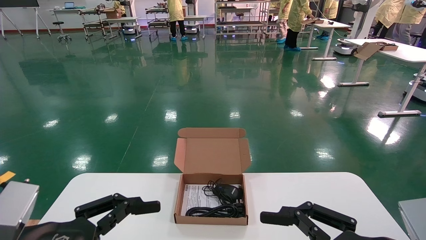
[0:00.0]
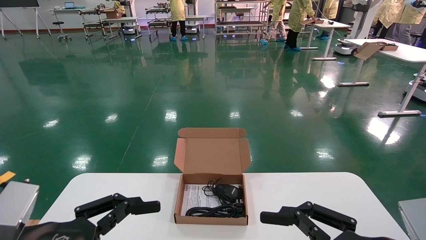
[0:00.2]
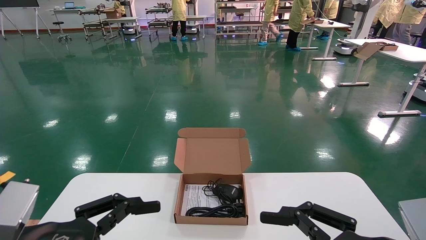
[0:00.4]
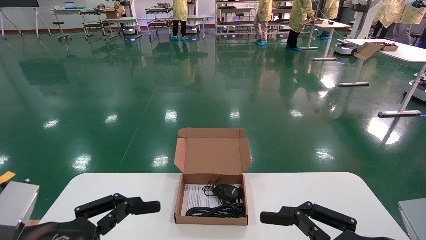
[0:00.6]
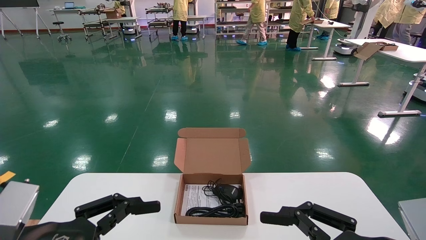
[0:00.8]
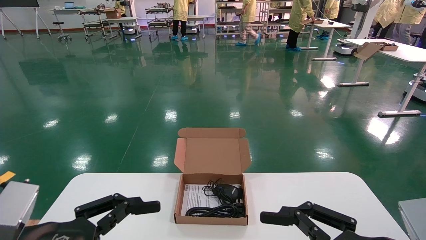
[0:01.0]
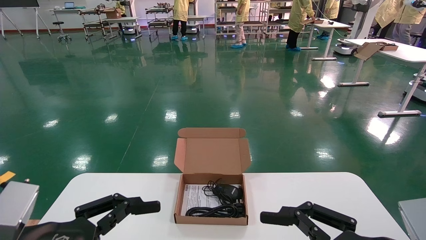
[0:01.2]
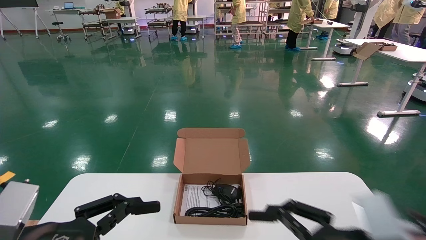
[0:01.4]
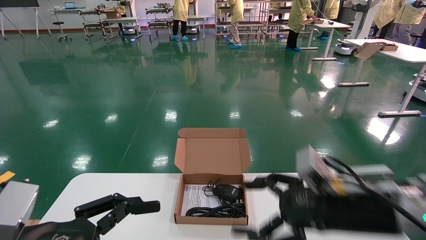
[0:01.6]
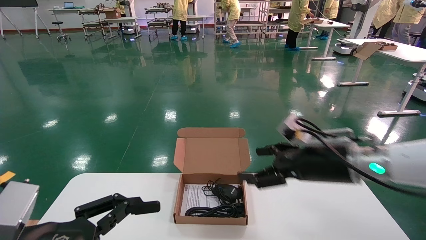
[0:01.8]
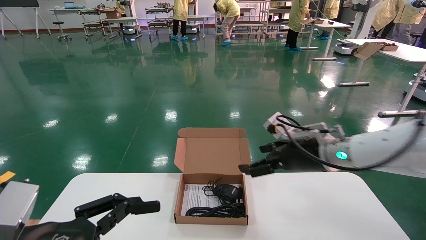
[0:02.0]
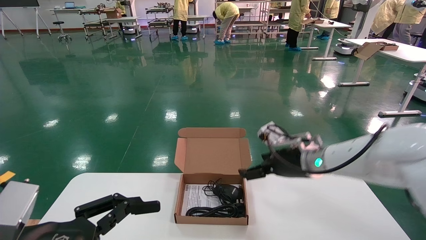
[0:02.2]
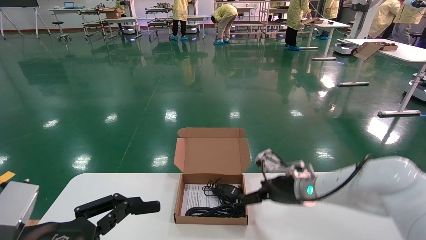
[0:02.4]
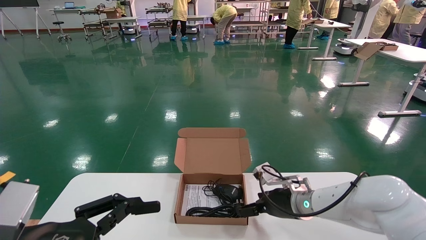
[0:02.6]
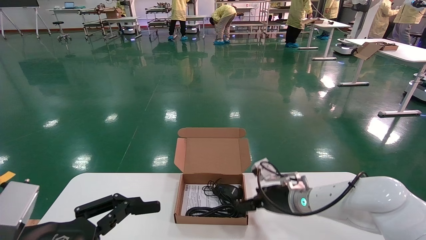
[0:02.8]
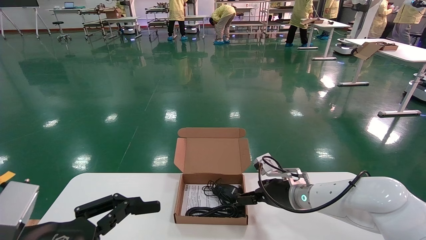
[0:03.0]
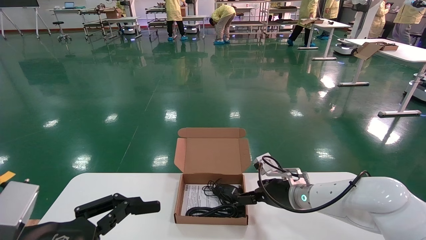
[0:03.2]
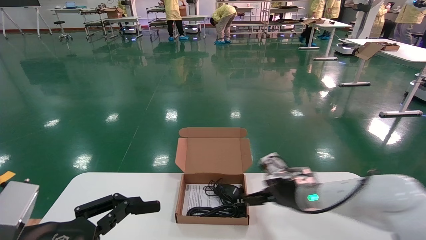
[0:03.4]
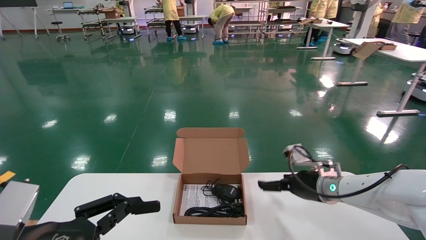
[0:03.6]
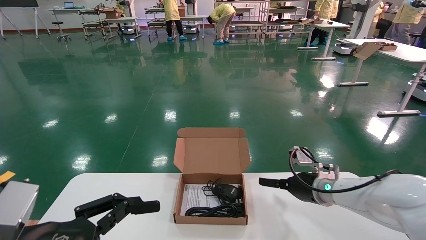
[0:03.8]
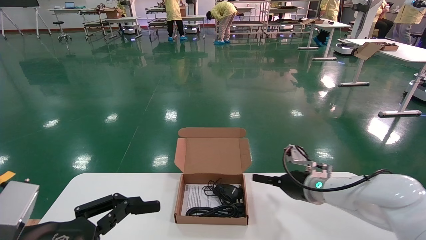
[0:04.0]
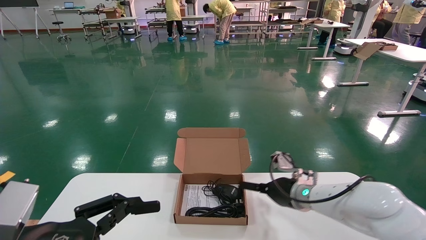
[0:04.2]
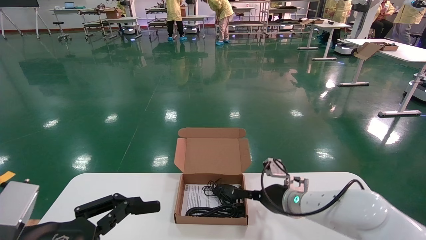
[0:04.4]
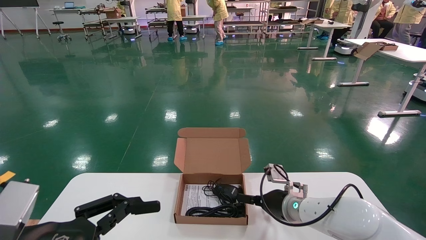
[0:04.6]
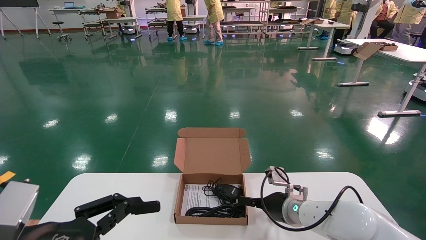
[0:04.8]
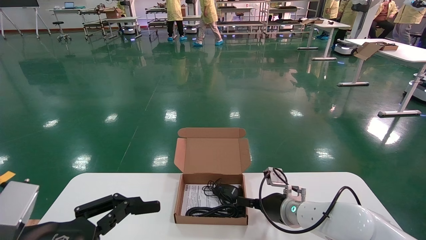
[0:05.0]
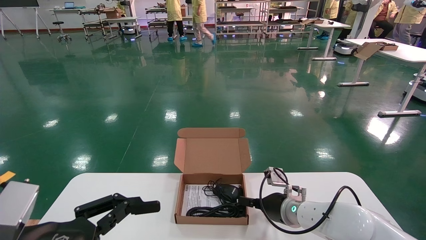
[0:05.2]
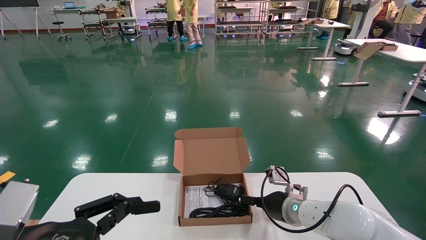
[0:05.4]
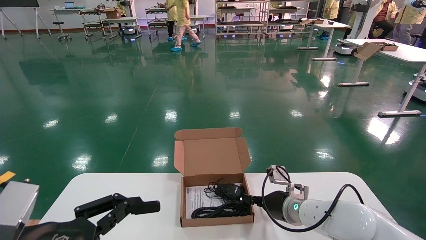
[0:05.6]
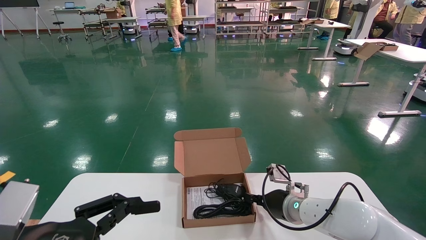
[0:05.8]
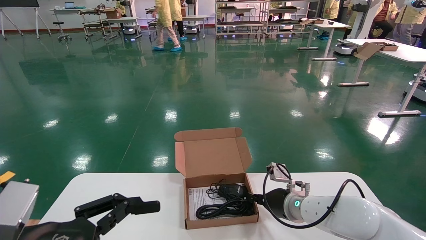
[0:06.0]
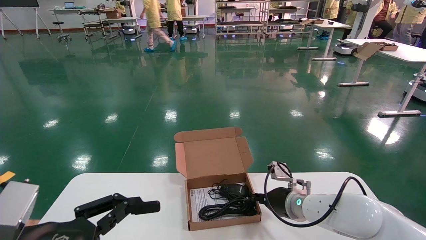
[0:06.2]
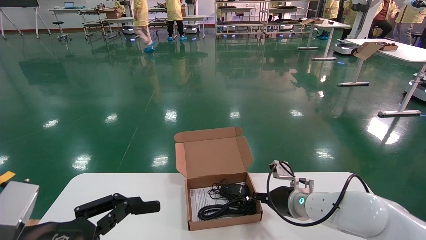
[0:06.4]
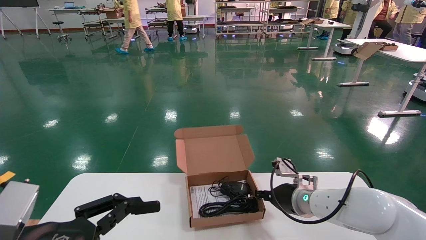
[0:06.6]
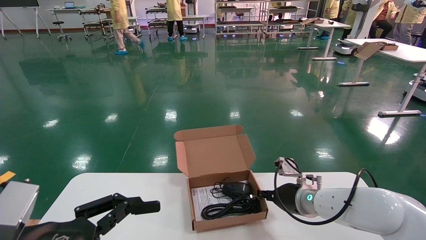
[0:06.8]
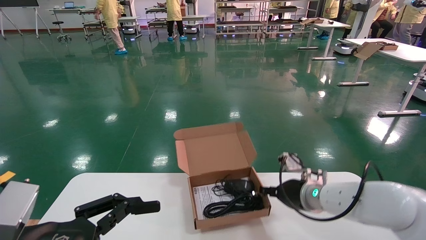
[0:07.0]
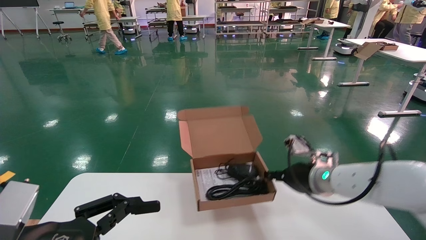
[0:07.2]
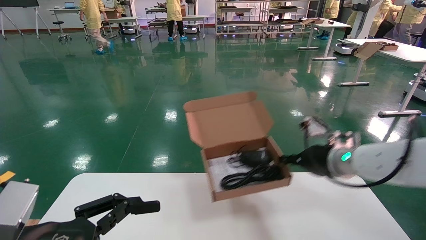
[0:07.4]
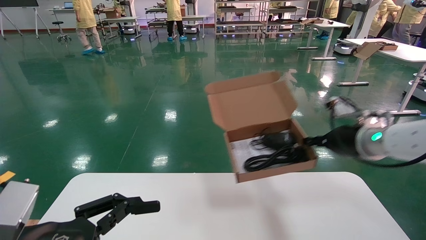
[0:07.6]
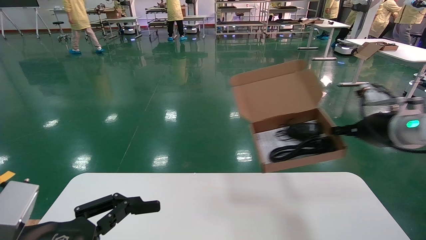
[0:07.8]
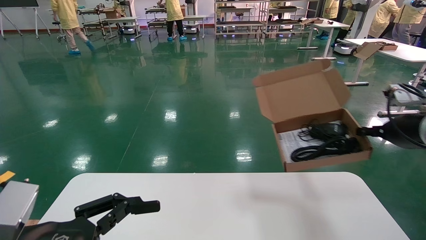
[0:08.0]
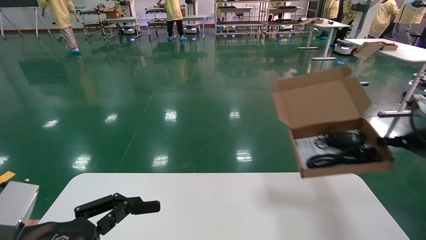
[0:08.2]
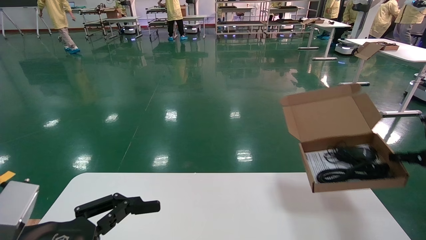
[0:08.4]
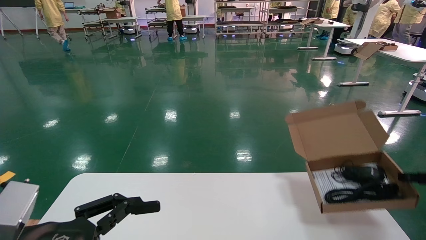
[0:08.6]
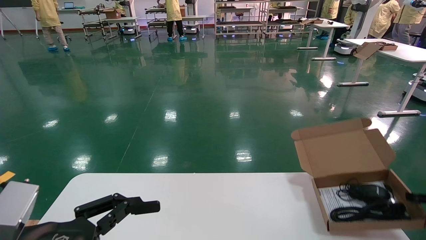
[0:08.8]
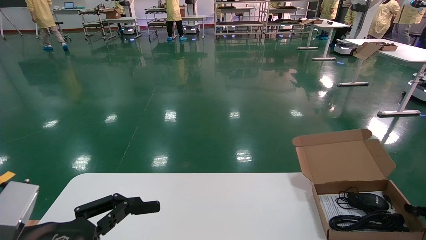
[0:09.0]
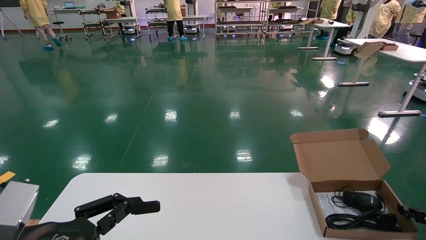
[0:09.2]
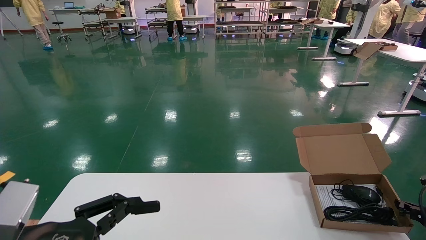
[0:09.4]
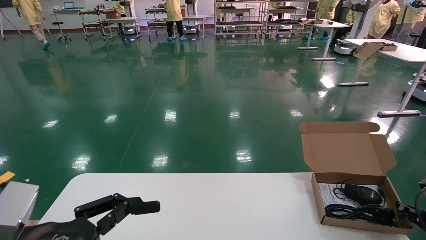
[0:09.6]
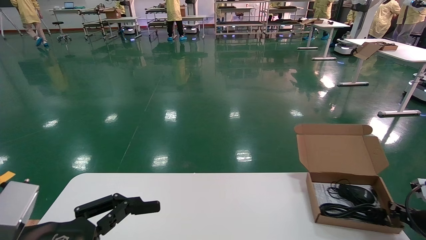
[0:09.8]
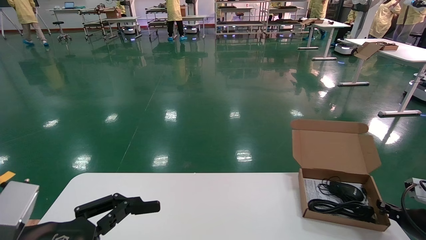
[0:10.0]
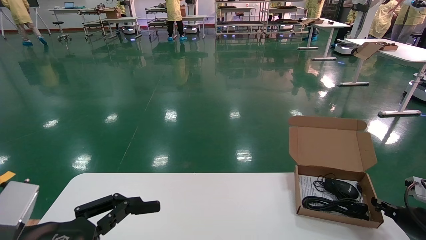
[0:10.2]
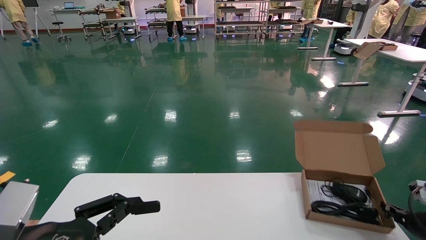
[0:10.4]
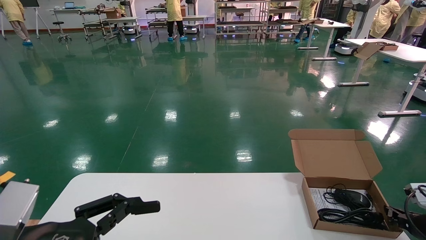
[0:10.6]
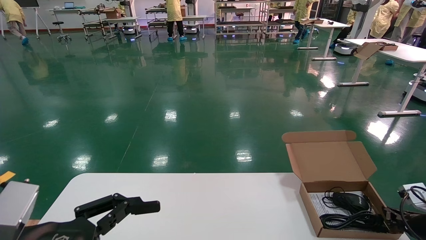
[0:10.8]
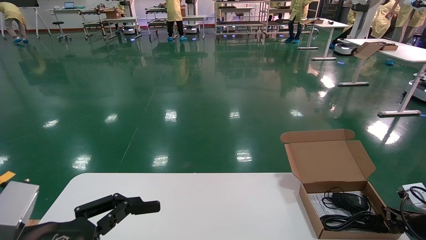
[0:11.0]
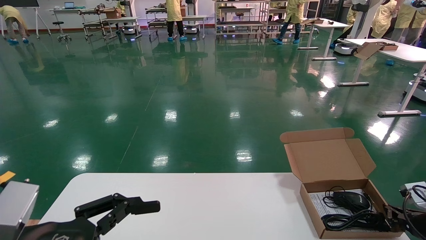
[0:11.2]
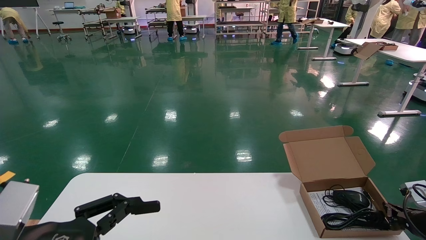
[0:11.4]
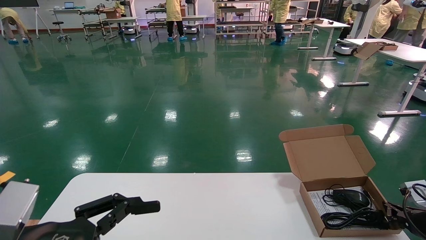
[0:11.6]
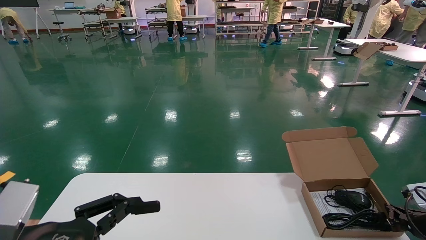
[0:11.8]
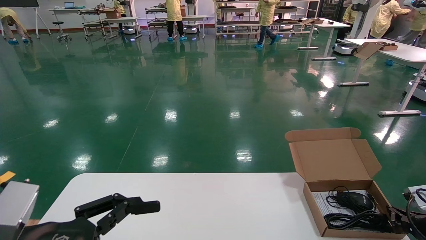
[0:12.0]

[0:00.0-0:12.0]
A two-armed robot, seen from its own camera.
Task of the whole recording: move the position of the storage box with accessories on the table.
Step, 0:01.6 to 0:06.4: Grab and pick up the open mouse box from the accessory packaging area.
0:00.0 to 0:01.6: The right gripper is displaced forward by roughly 15 cm.
0:01.6 to 0:03.0: The right gripper shifts approximately 20 cm forward and downward.
0:04.4 to 0:06.0: The right gripper closes up.
0:06.0 to 0:07.6: The right gripper moves upward and to the right, roughly 20 cm.
0:07.6 to 0:09.0: The right gripper moves to the right and downward, some 25 cm.
0:09.0 to 0:10.4: The right gripper moves downward, about 5 cm.
0:10.4 to 0:12.0: There are only small adjustments of the grippers.

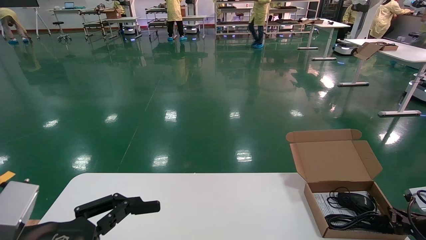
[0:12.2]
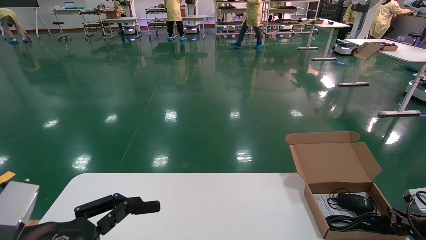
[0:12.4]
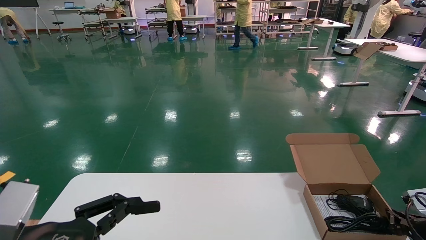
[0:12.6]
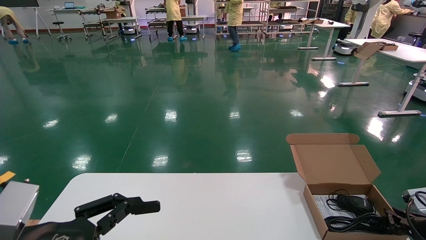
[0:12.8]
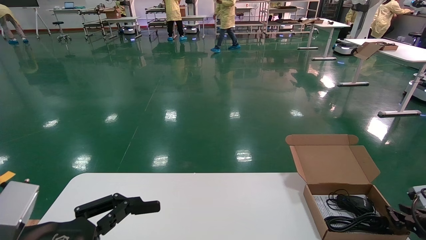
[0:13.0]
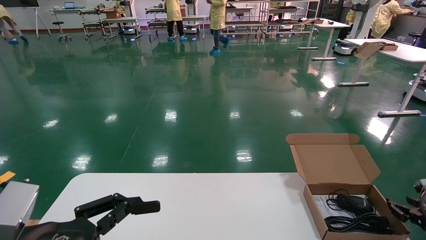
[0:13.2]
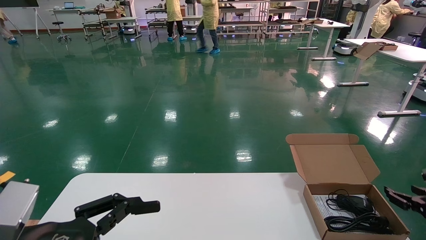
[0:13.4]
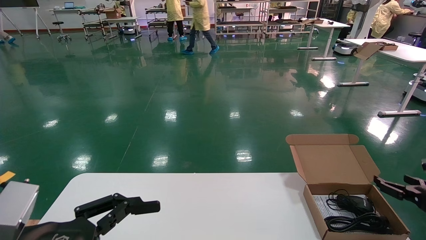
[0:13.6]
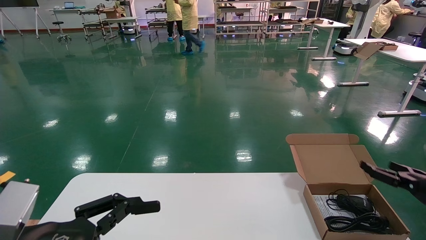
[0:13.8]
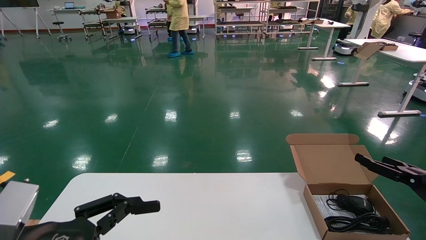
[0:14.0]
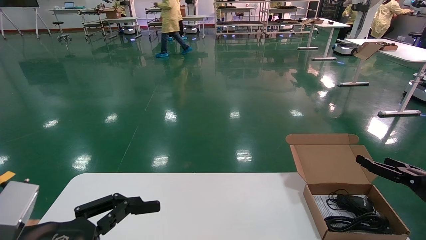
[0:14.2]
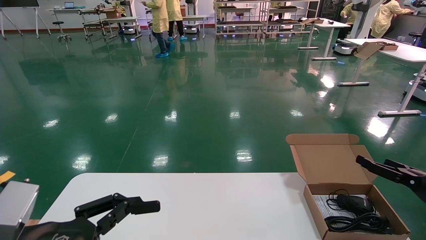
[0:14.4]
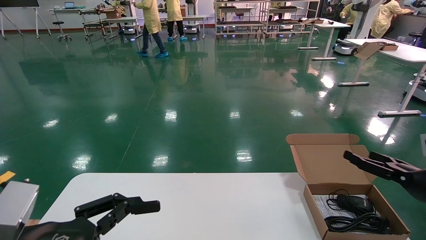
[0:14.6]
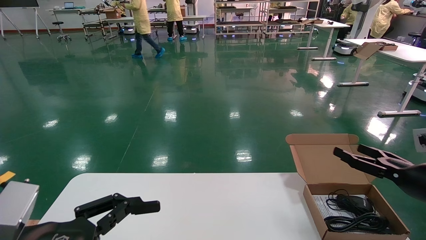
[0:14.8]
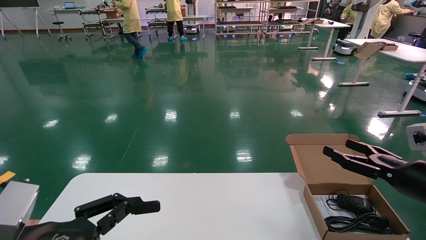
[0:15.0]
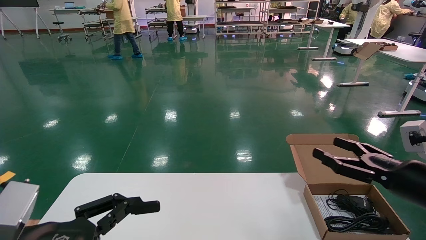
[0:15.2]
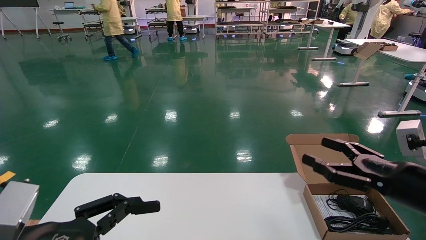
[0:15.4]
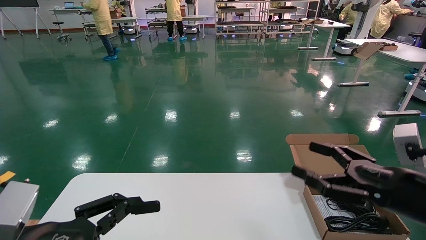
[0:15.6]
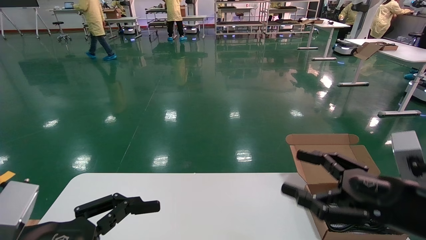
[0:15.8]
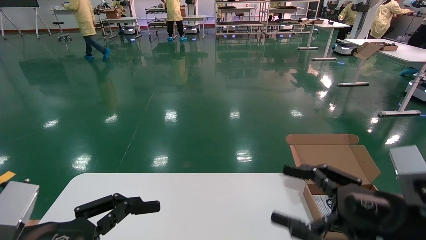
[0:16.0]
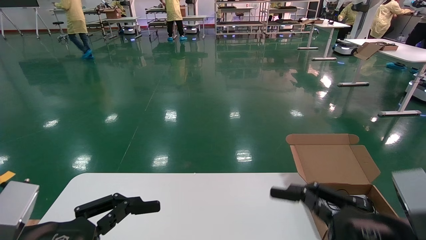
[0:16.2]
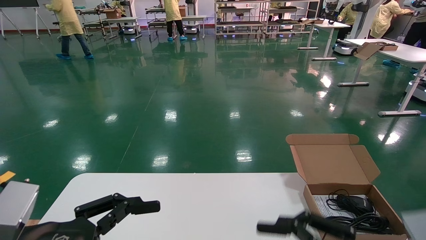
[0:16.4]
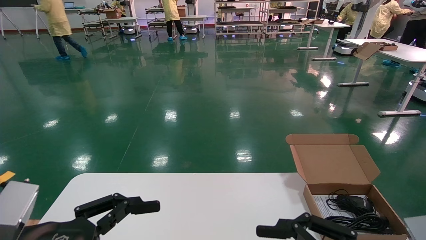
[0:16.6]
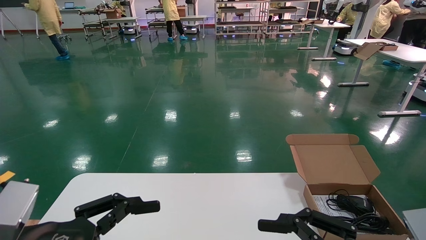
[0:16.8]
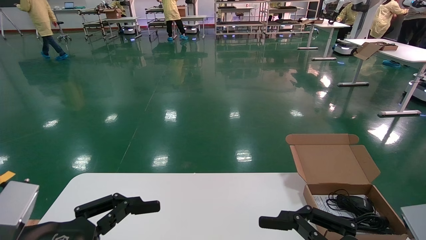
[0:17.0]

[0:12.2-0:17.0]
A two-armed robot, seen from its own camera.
Task of the whole recording: move the position of the storage box with accessories on the table.
0:12.2 to 0:13.8: The right gripper moves upward, approximately 10 cm, and opens.
0:13.8 to 0:15.4: The right gripper goes roughly 15 cm to the left, backward and upward.
0:15.4 to 0:17.0: The right gripper shifts approximately 15 cm backward and to the left.
